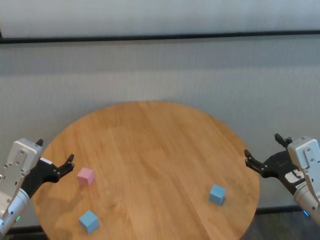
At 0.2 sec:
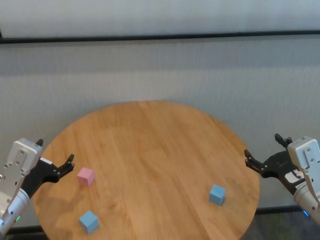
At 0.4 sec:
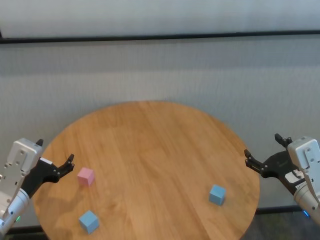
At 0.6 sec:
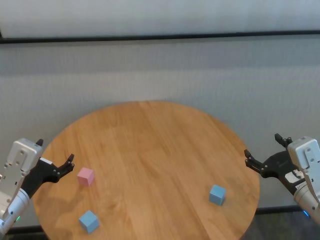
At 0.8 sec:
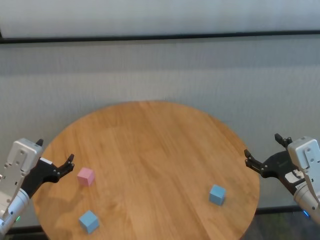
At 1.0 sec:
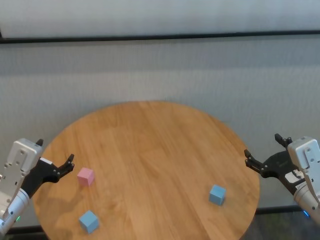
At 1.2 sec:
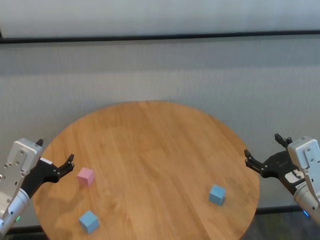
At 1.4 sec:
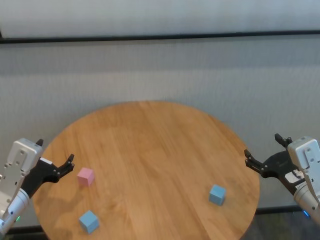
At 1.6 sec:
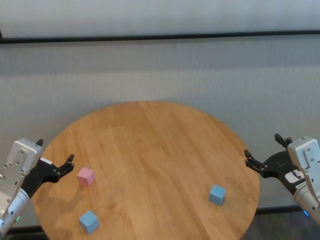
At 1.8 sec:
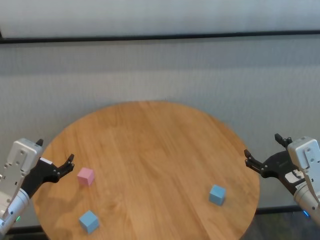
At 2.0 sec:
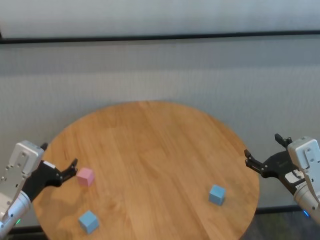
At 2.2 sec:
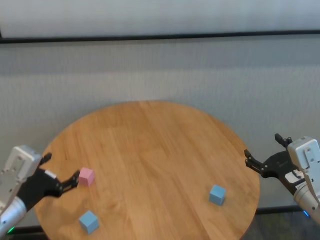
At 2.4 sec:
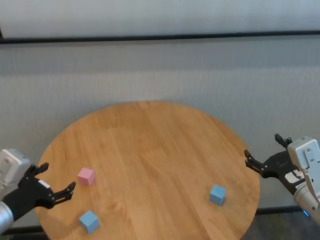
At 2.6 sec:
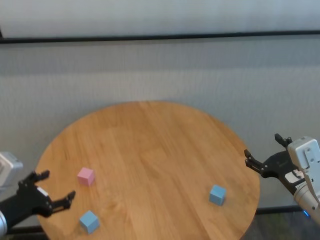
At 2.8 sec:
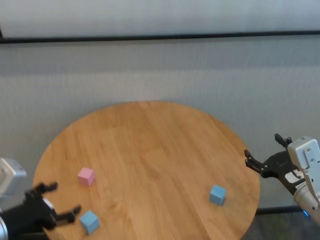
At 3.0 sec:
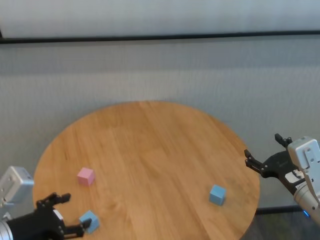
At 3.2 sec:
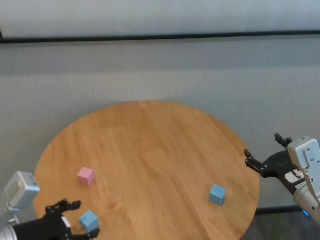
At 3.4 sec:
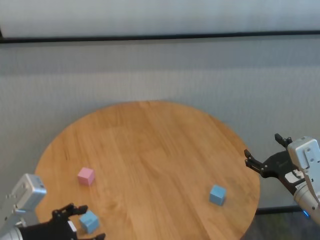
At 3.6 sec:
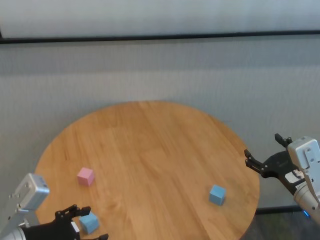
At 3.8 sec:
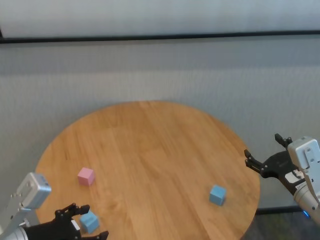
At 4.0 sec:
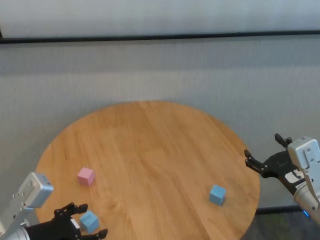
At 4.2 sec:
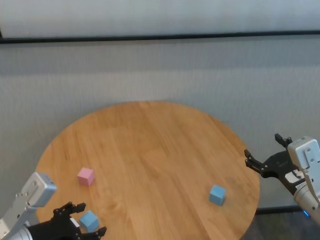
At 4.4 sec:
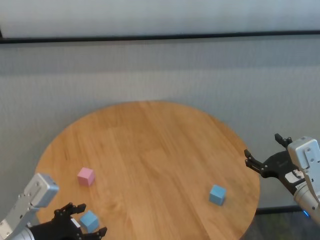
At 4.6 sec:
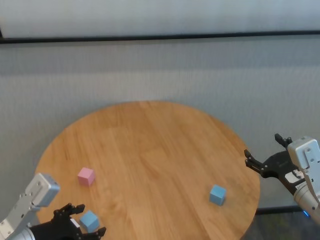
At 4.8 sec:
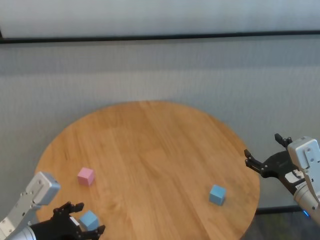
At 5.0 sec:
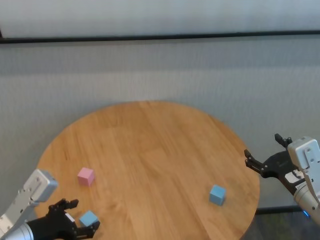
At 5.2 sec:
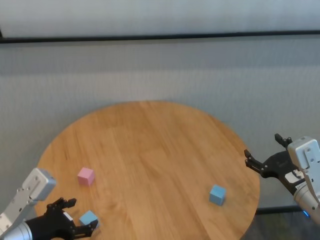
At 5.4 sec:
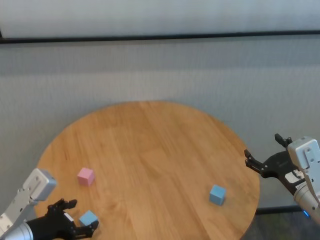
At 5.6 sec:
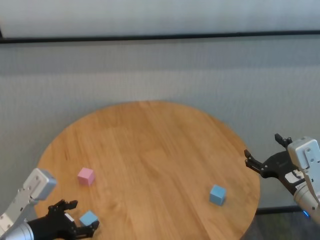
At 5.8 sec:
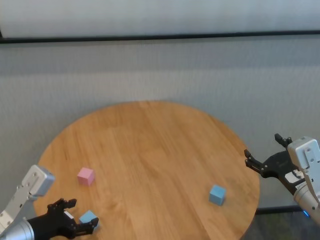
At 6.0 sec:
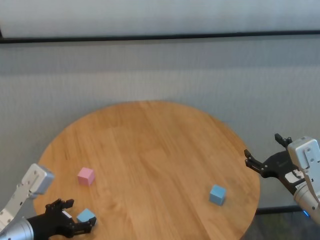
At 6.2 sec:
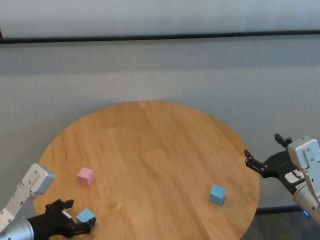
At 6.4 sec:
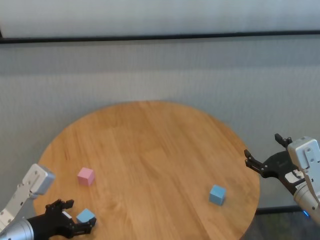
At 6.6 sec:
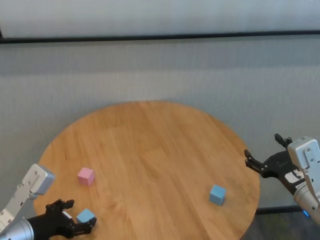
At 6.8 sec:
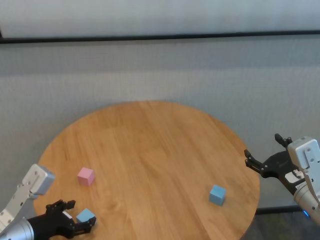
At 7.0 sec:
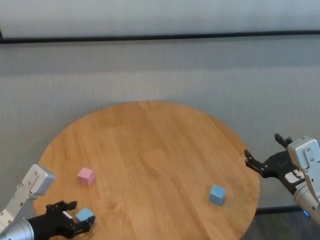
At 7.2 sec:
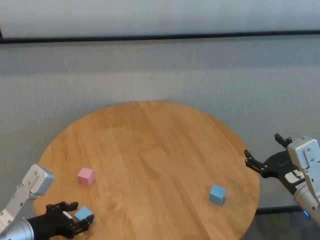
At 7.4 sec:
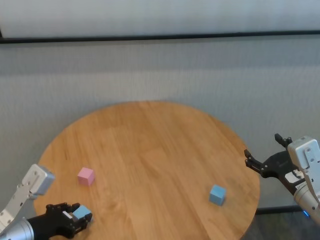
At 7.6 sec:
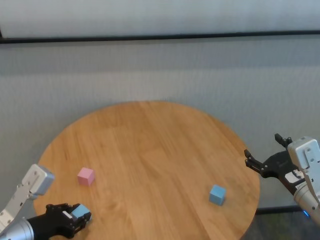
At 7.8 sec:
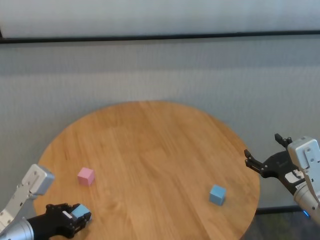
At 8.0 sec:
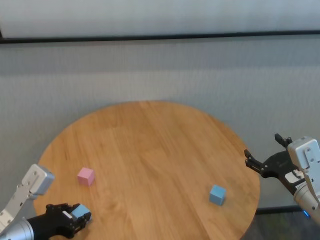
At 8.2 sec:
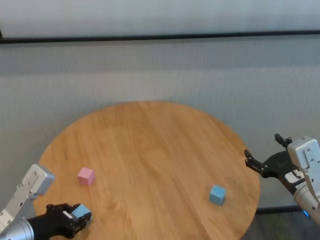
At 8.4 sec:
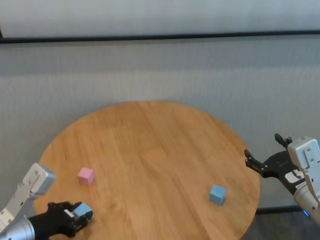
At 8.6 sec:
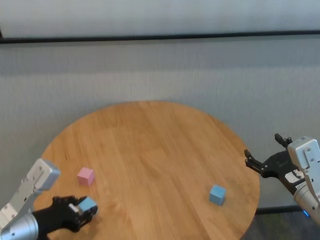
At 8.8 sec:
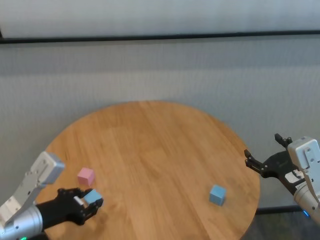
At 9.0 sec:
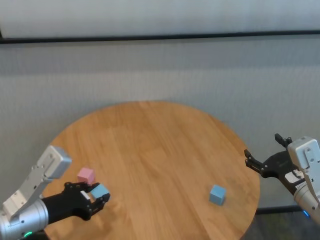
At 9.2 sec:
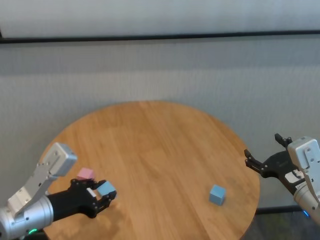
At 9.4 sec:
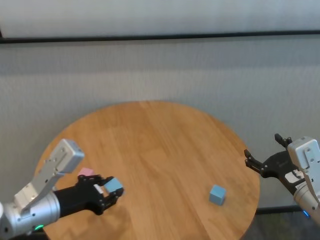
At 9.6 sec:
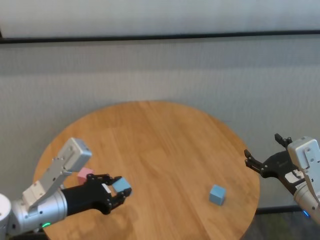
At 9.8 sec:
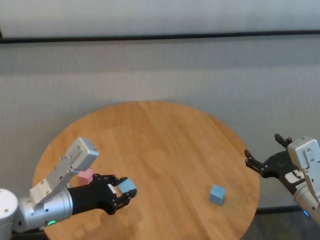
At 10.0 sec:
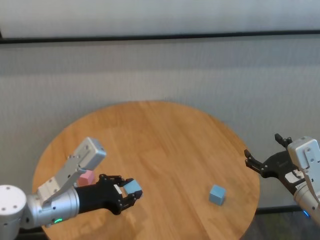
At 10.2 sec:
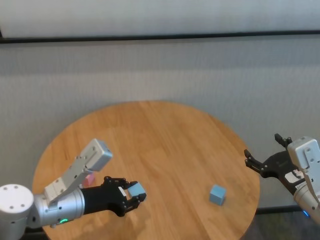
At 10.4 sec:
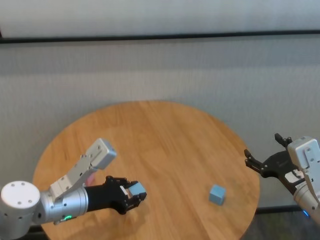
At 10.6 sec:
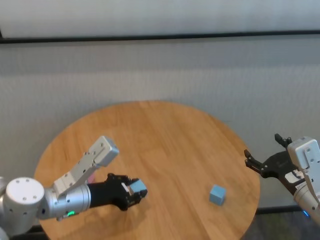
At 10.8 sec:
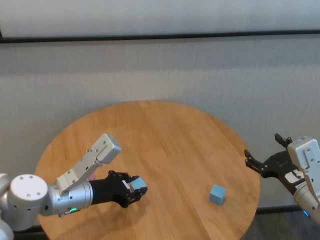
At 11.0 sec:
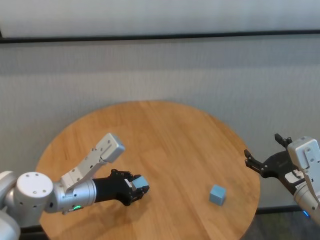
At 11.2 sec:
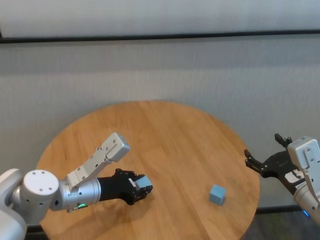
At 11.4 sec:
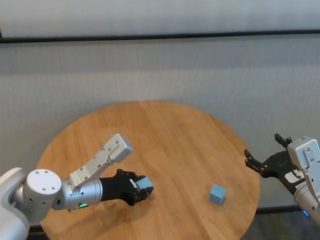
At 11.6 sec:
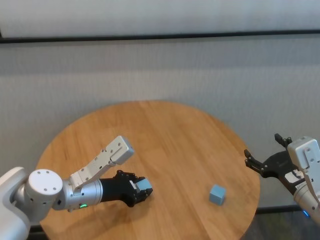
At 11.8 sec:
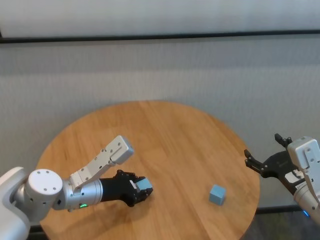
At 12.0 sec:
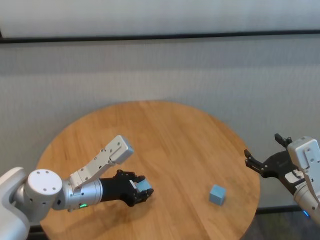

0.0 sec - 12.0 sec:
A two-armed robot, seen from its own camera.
Task of the whole recording: stack building blocks on the table.
Step, 0.0 sec - 8.0 sec: Grasp the blue building block with left gripper.

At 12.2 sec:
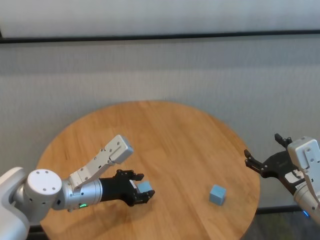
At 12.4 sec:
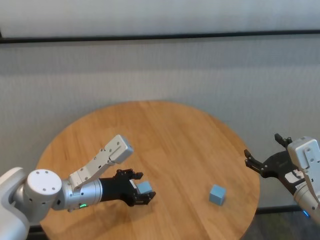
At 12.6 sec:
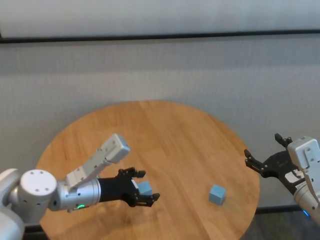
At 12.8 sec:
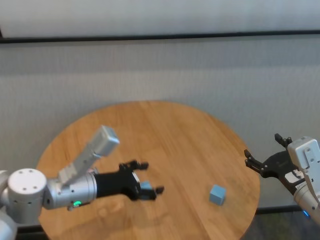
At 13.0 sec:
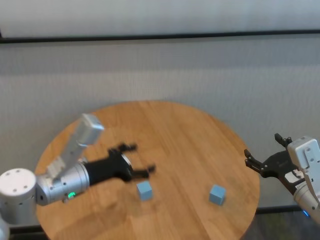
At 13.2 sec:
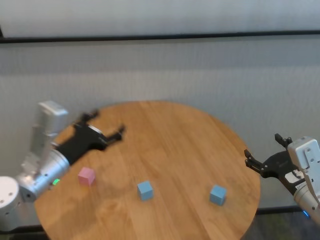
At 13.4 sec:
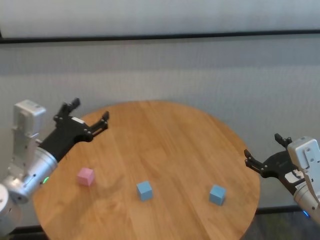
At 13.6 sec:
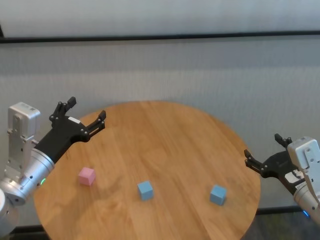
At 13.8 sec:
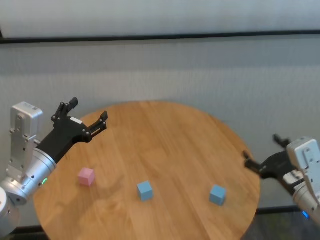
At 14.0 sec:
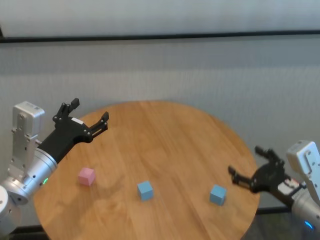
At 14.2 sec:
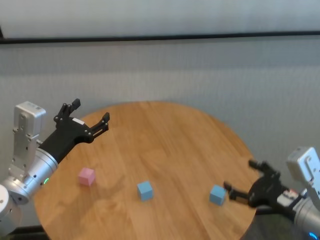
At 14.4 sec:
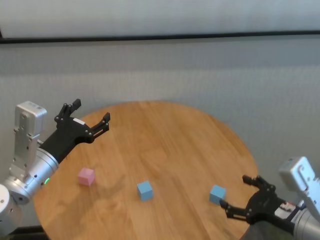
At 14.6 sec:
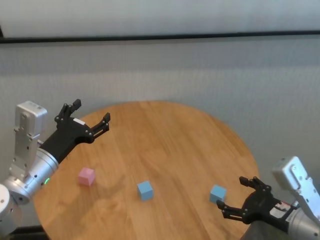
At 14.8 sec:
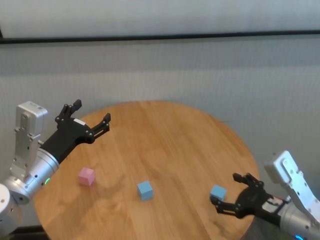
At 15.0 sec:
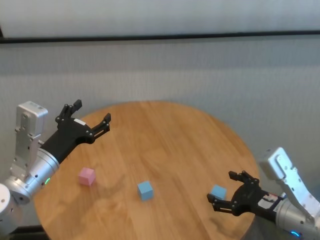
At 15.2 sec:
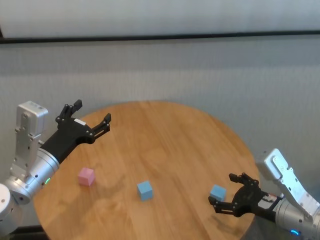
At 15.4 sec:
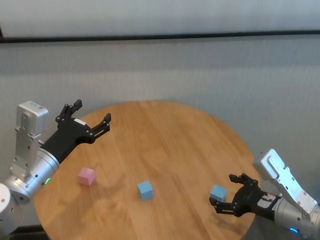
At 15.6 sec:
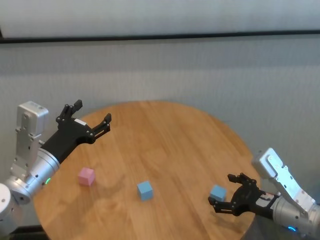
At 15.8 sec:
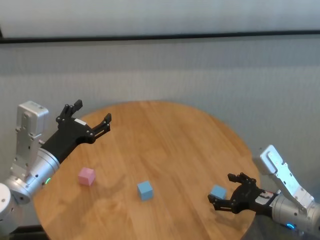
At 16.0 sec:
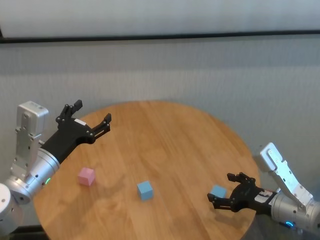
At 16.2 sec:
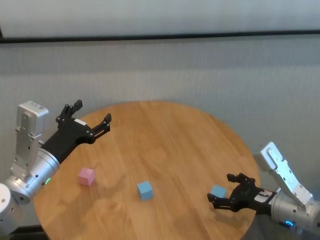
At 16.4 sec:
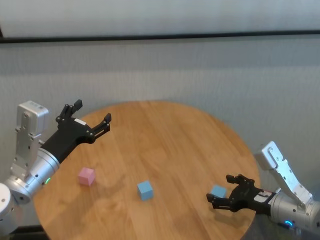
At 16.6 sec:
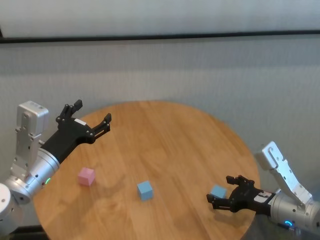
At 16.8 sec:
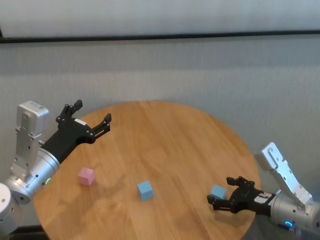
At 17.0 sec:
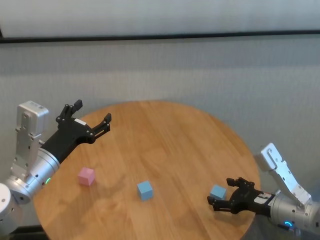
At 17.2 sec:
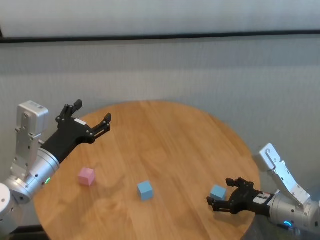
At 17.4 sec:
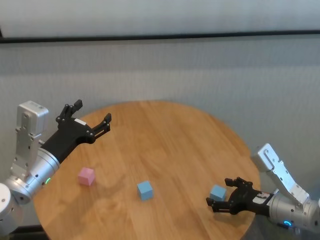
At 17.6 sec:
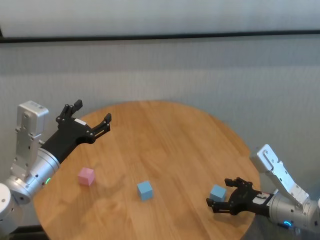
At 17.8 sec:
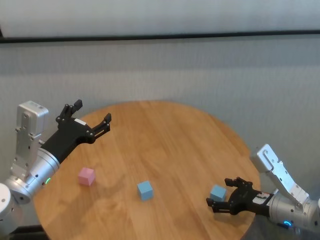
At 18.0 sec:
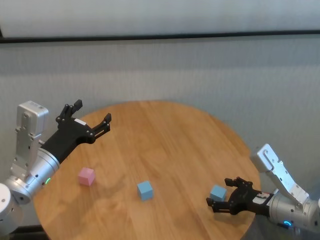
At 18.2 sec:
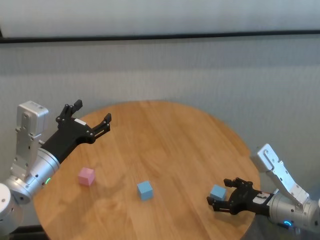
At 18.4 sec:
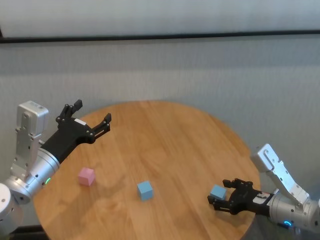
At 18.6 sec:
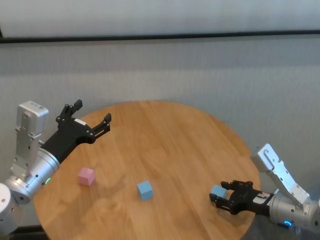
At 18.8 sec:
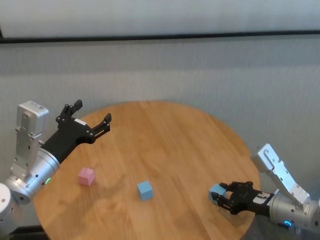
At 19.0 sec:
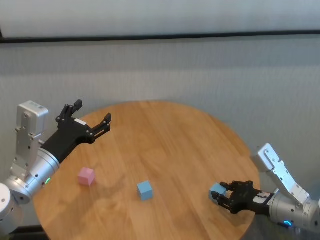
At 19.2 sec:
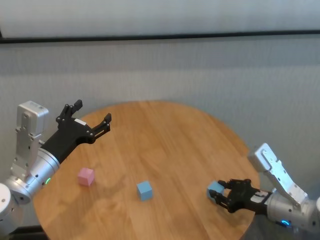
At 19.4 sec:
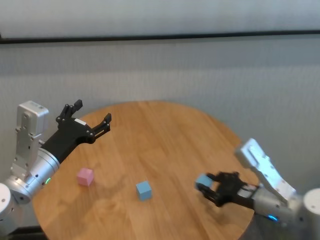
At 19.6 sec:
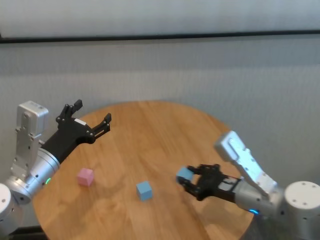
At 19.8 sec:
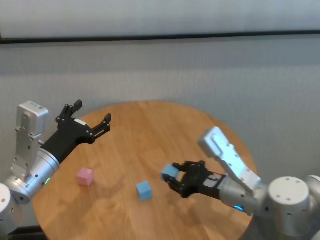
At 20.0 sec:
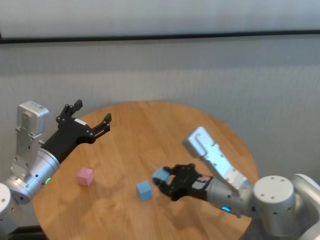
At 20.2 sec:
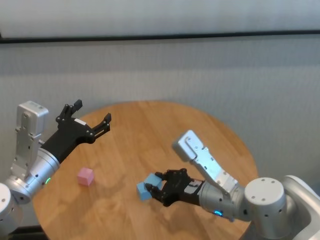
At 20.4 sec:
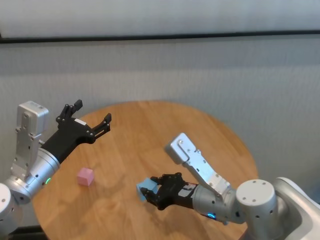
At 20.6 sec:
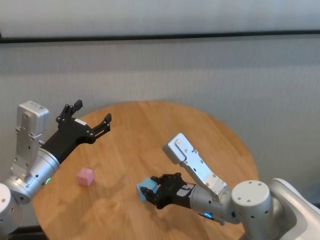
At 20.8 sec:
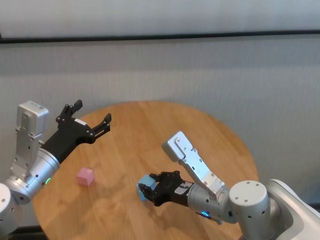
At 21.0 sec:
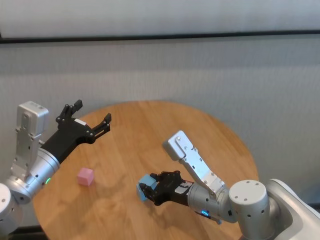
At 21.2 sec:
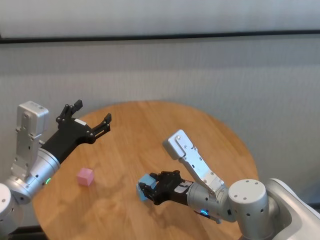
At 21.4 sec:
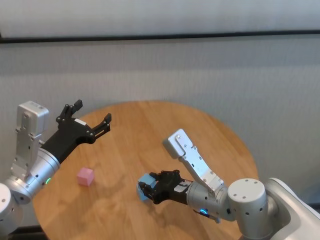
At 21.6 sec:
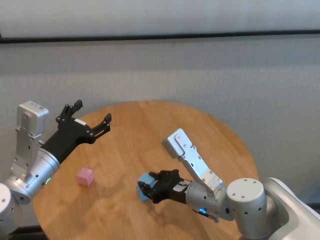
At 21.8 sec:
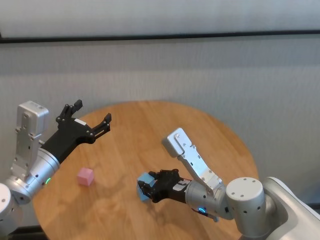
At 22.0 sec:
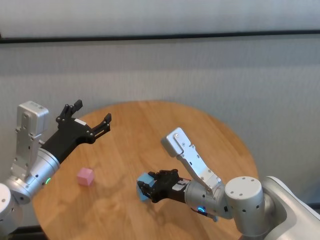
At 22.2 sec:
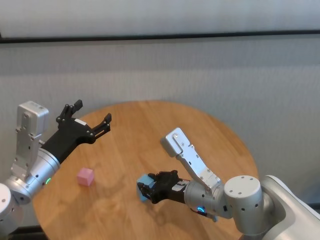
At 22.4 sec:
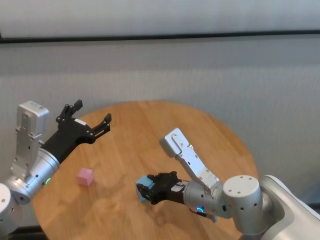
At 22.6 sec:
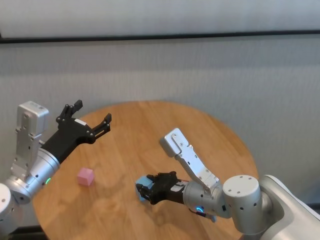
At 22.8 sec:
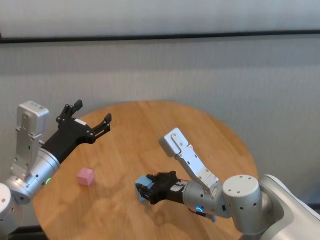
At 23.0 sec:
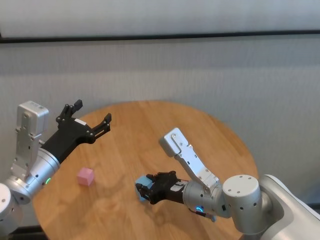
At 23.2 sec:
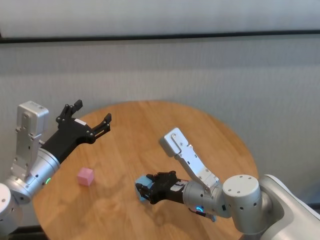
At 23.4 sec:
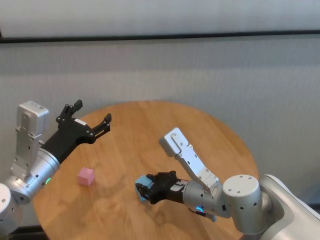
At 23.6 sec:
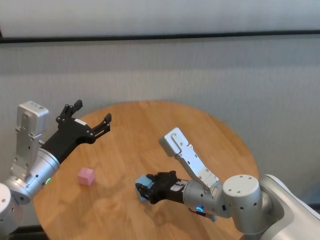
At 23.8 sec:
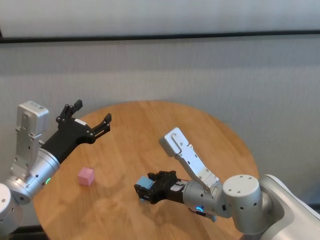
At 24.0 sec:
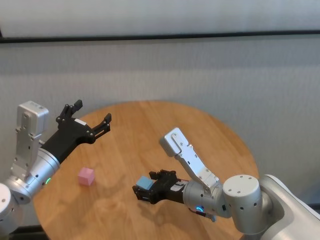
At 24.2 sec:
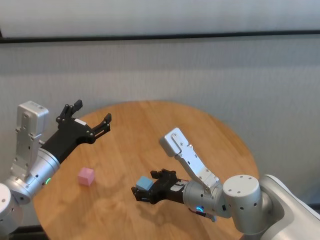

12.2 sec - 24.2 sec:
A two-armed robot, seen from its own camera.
Task of the whole recording: stack building blocks on the table.
Step, 12.4 sec - 18.8 sec: Grasp the blue building block with right gripper.
Step, 19.0 sec - 23.8 sec: Place the blue building block on the blue building blocks with right gripper.
